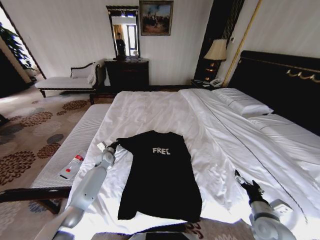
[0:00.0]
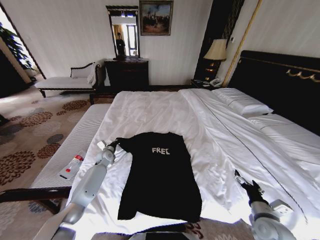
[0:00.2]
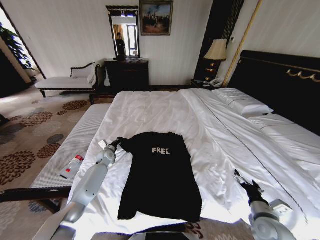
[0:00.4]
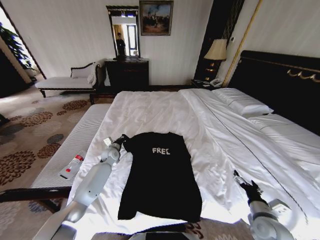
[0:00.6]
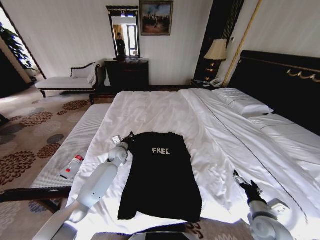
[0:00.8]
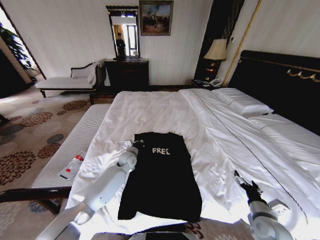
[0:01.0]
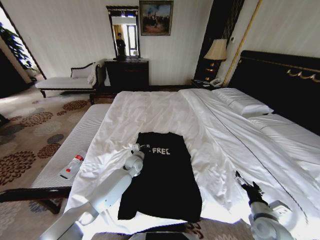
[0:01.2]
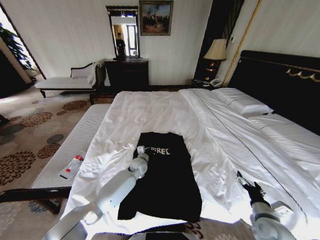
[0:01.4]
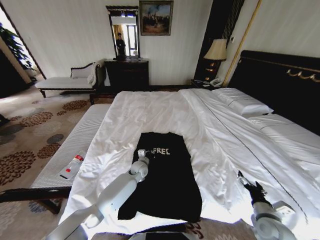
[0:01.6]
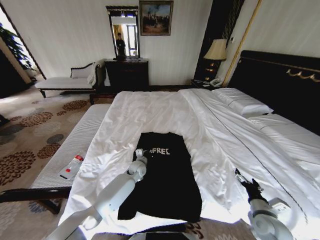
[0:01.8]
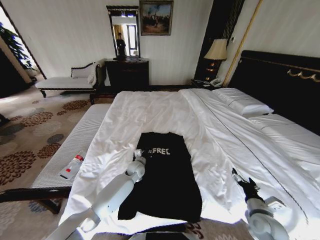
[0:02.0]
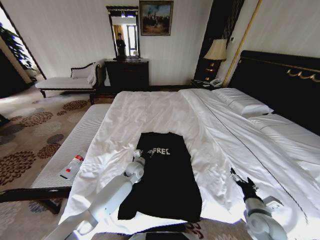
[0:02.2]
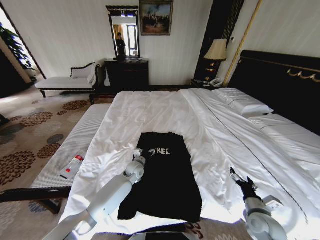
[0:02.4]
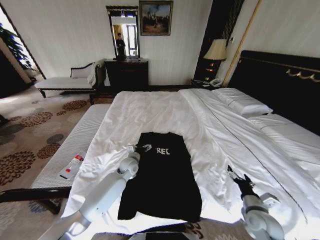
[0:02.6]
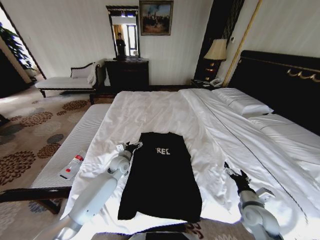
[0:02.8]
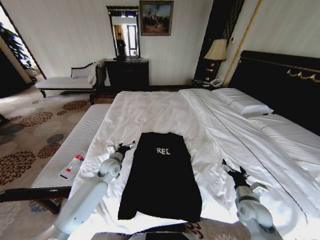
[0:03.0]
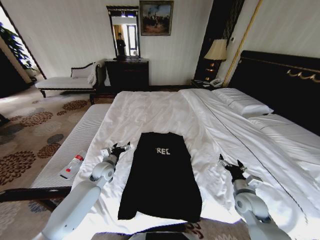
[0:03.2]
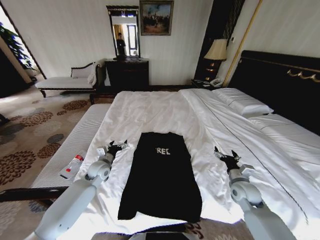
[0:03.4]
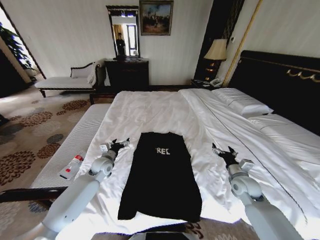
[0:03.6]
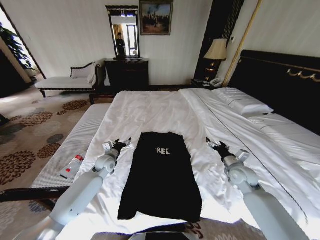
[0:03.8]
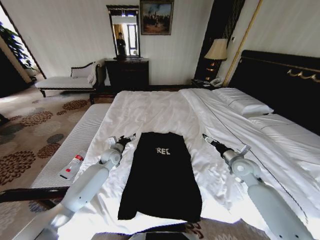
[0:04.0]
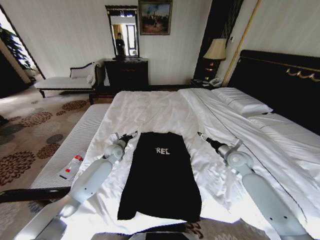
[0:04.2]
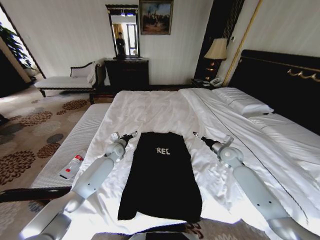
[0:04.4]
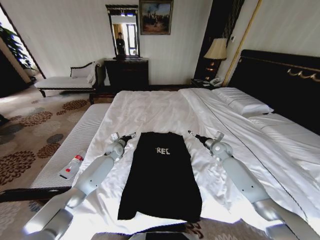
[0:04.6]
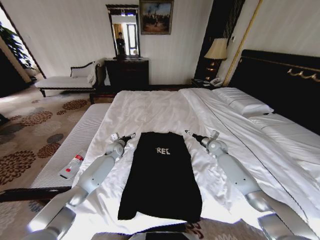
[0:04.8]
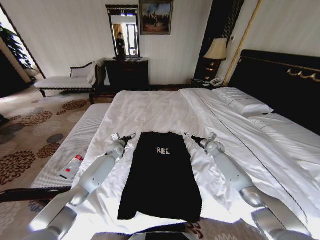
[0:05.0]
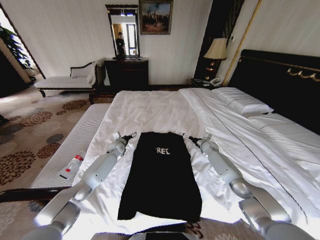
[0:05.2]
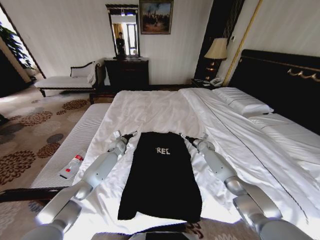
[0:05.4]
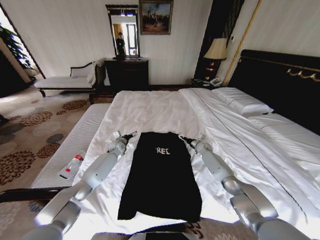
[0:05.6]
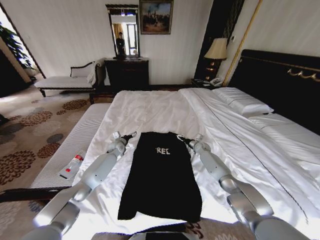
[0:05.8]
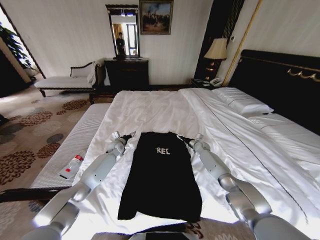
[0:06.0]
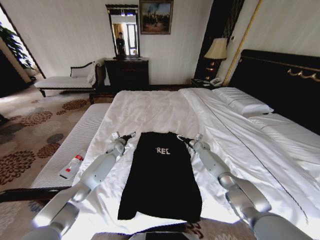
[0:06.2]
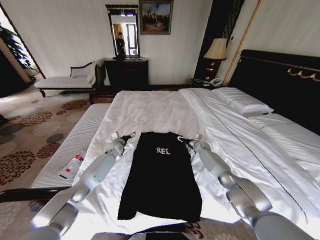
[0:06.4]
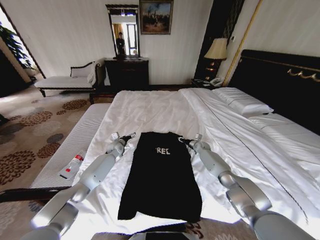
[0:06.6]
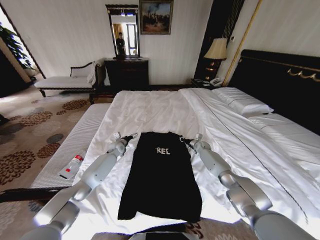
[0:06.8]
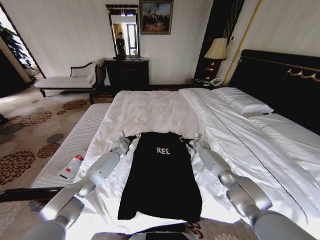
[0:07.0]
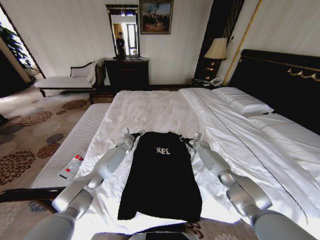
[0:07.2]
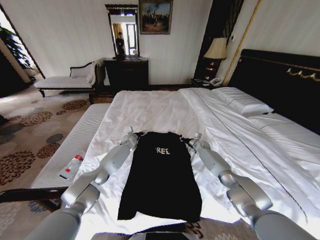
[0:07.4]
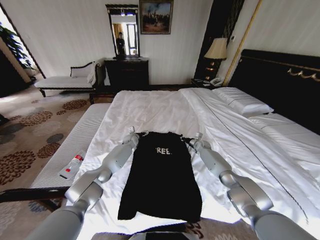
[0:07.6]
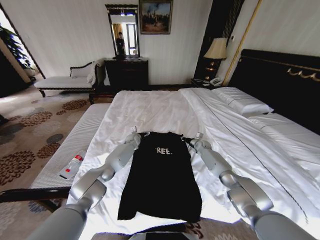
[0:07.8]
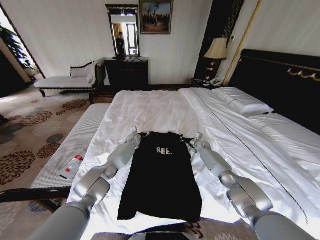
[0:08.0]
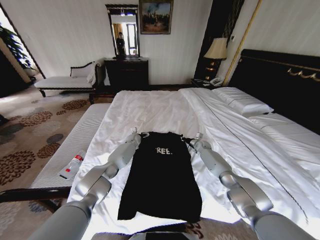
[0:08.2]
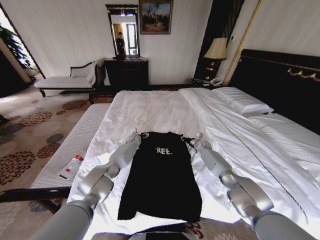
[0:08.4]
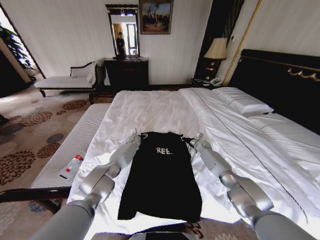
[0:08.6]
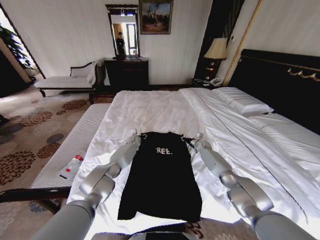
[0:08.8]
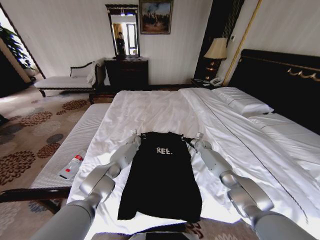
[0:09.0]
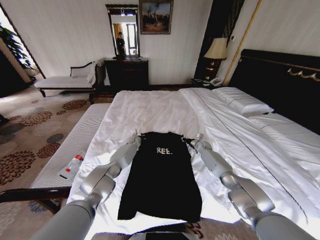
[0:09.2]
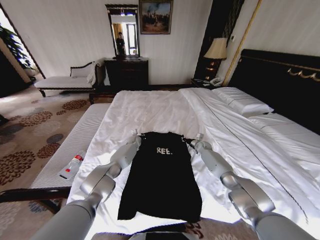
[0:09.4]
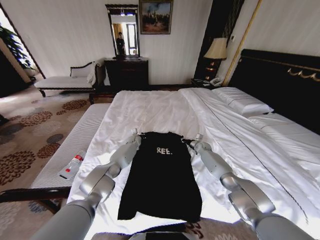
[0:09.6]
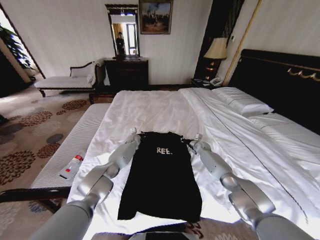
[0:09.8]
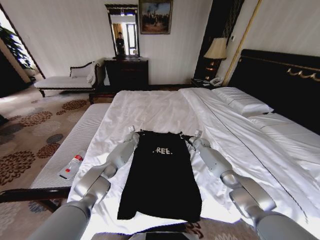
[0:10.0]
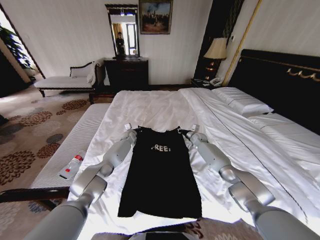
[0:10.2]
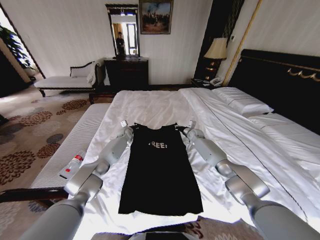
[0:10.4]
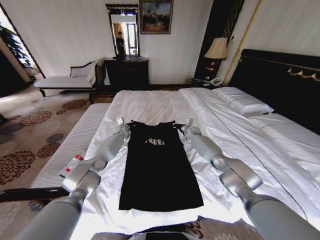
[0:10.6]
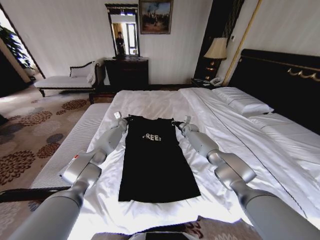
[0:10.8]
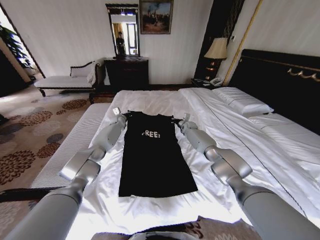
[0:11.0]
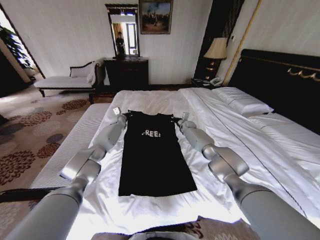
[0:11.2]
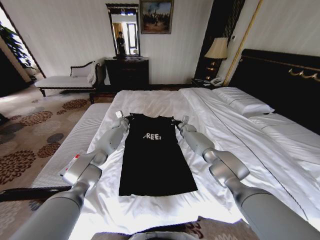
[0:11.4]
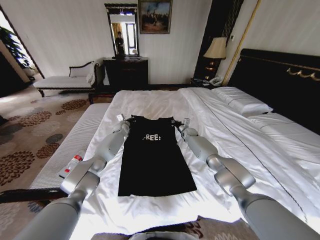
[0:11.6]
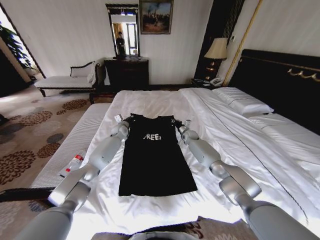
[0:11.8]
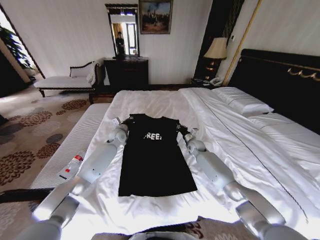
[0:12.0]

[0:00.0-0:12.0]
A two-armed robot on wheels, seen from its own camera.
Task of the whole recording: Fold the clothes on the bed.
0:00.0 to 0:01.6: The left gripper shifts some 20 cm to the right.
0:01.6 to 0:03.0: The right gripper travels forward by approximately 5 cm, while the left gripper moves to the left and upward, about 15 cm, and opens up.
0:03.0 to 0:04.4: The right gripper heads forward, covering some 20 cm, while the left gripper travels forward by roughly 10 cm.
0:04.4 to 0:06.0: The right gripper goes some 20 cm forward and downward.
0:06.0 to 0:07.6: The left gripper goes about 10 cm to the right and forward. The right gripper closes up.
0:07.6 to 0:09.0: The left gripper closes.
0:09.0 to 0:10.4: Both grippers travel together upward and to the left, some 10 cm. The left gripper closes up.
0:10.4 to 0:12.0: The right gripper moves backward, some 5 cm. Meanwhile the left gripper travels backward and upward by roughly 10 cm.

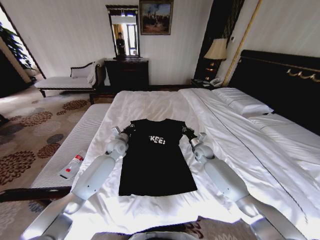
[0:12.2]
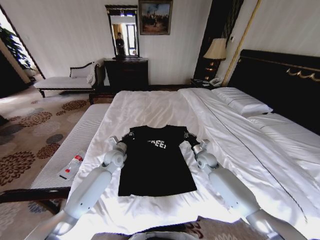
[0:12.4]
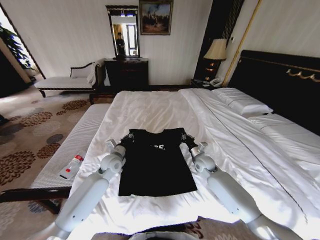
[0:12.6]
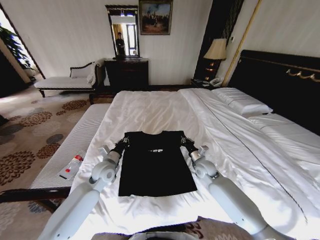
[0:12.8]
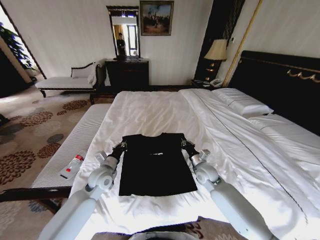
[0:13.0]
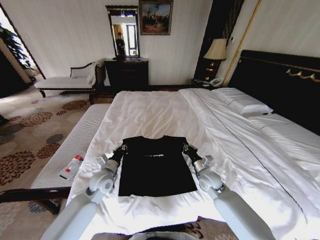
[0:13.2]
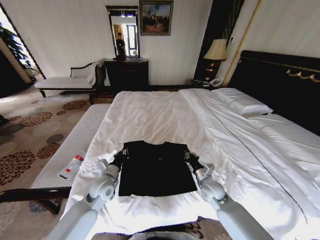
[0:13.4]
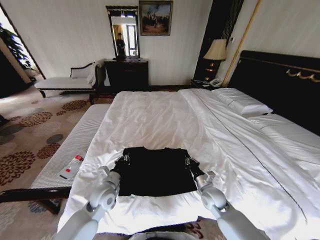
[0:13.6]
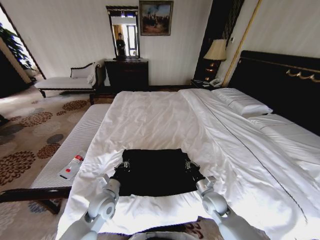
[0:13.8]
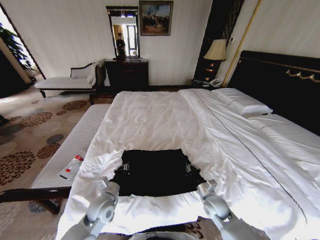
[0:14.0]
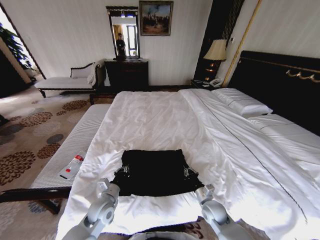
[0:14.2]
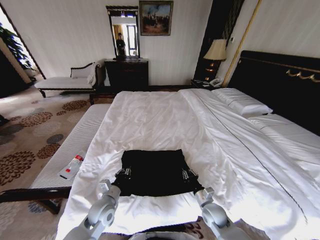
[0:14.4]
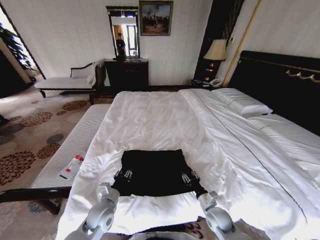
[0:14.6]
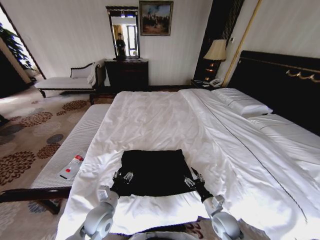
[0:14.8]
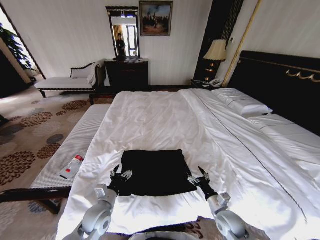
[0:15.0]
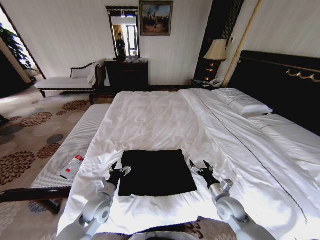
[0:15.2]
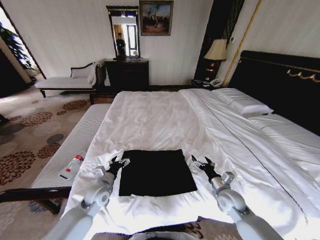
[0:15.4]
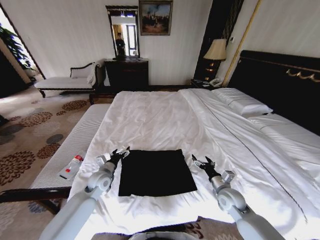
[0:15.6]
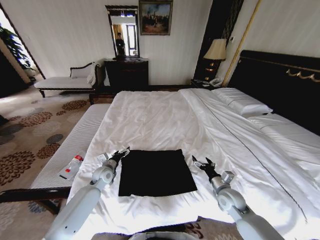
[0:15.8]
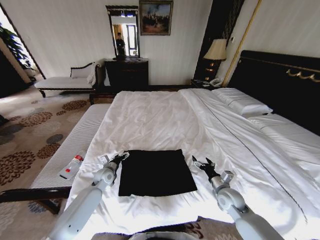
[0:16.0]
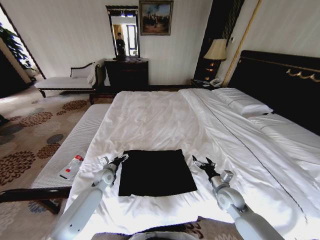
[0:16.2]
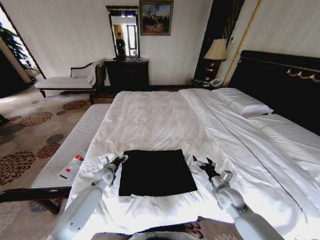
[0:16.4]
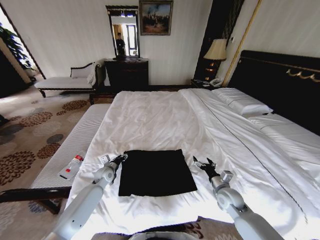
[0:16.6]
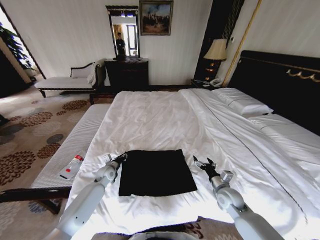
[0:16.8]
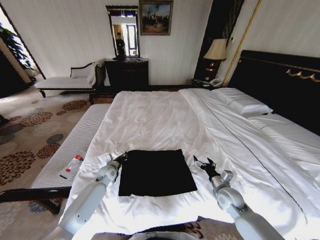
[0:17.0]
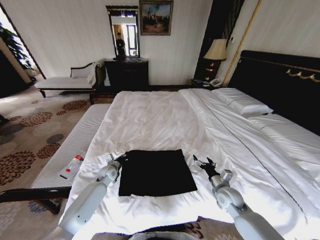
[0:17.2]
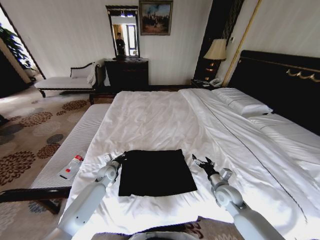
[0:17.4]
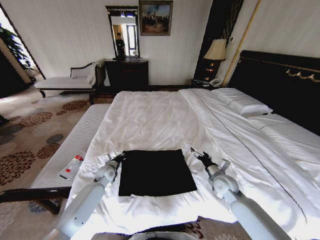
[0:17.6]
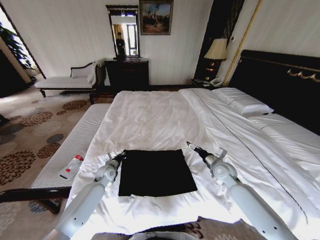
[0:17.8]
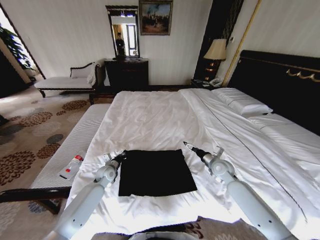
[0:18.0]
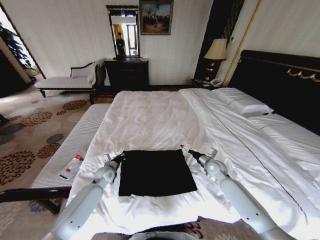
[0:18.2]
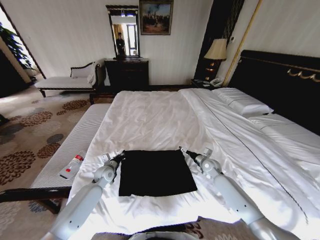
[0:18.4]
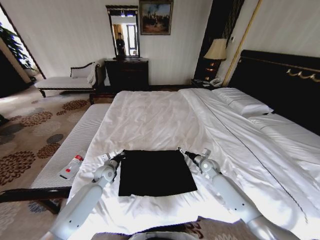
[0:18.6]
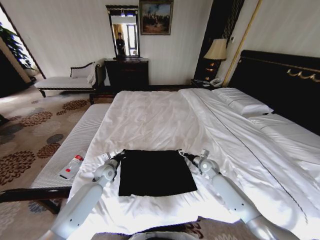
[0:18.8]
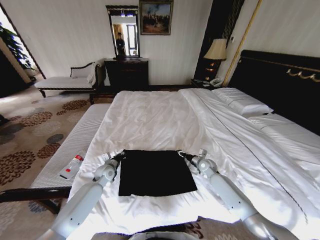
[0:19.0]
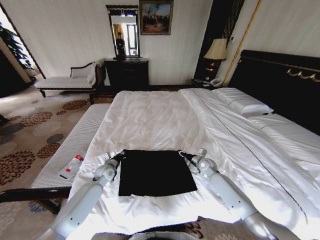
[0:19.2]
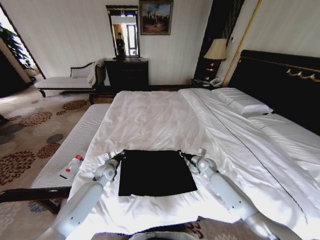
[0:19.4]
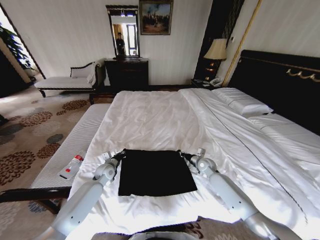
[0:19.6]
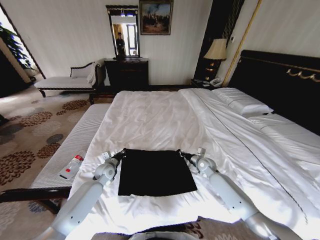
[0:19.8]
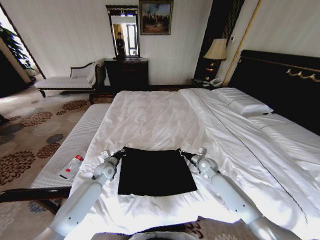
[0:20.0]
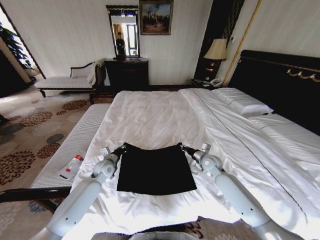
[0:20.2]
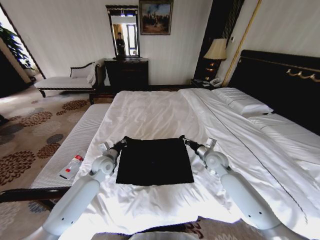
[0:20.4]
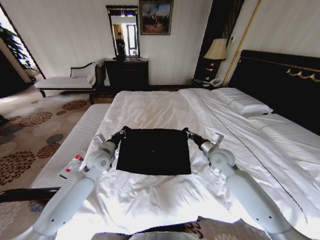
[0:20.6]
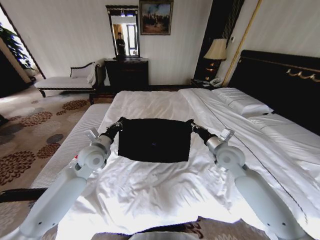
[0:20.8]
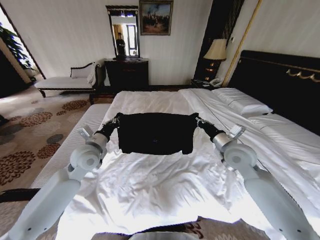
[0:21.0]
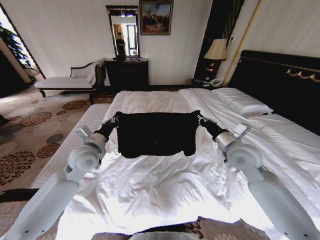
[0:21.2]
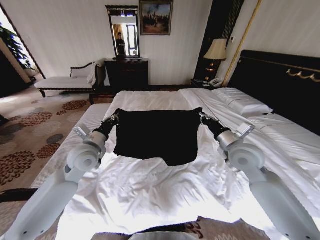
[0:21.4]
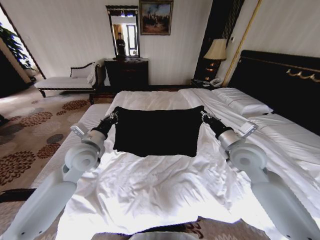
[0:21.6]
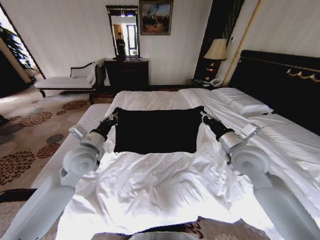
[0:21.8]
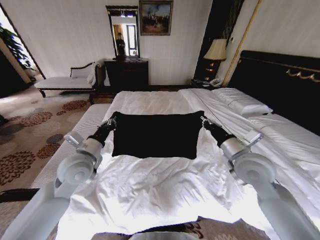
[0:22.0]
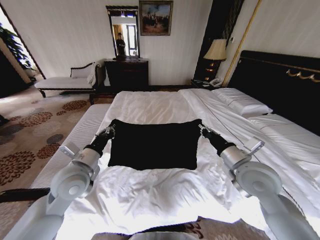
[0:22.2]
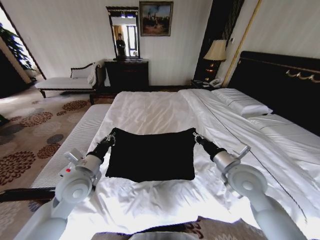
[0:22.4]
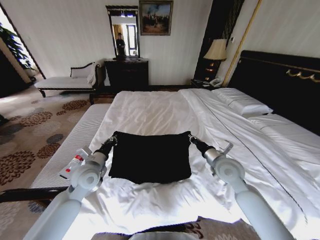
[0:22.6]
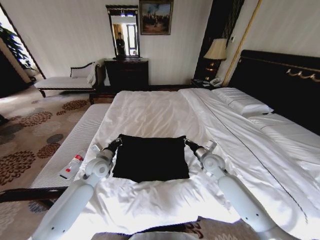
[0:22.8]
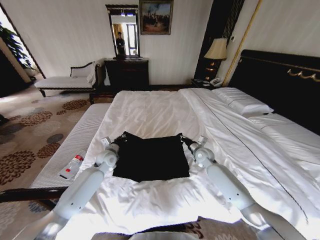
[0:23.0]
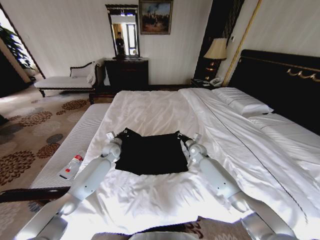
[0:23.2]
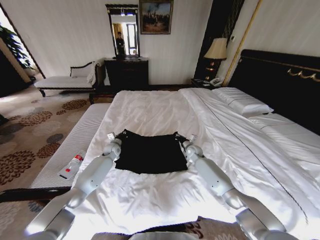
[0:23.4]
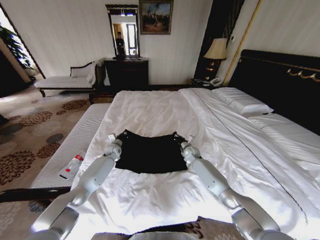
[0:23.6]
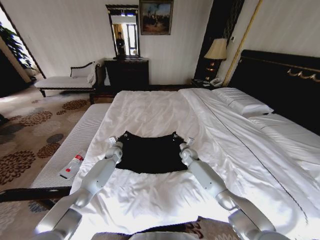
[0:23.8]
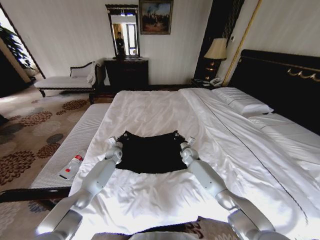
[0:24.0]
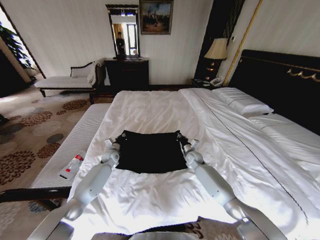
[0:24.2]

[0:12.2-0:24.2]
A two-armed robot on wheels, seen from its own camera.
Task of the whole recording: Fold the clothes on the bed.
0:12.2 to 0:13.8: Both grippers move backward, approximately 25 cm.
0:13.8 to 0:15.2: The left gripper opens up; the right gripper changes place by some 5 cm, and opens.
0:15.2 to 0:16.6: The left gripper heads forward, covering about 15 cm.
0:16.6 to 0:18.2: The left gripper closes, while the right gripper moves forward, approximately 15 cm.
0:18.2 to 0:19.8: The right gripper moves some 5 cm, and closes its fingers.
0:19.8 to 0:21.2: The left gripper shifts approximately 20 cm upward. Meanwhile the right gripper goes about 25 cm upward and backward.
0:21.2 to 0:22.6: Both grippers travel together downward, some 5 cm.
0:22.6 to 0:24.2: The left gripper is displaced forward and downward by some 25 cm; the right gripper shifts some 25 cm downward and forward.
